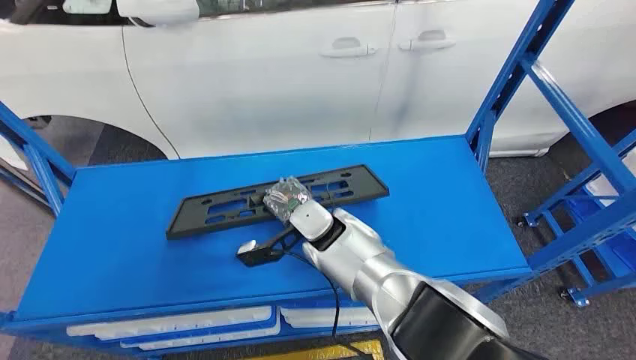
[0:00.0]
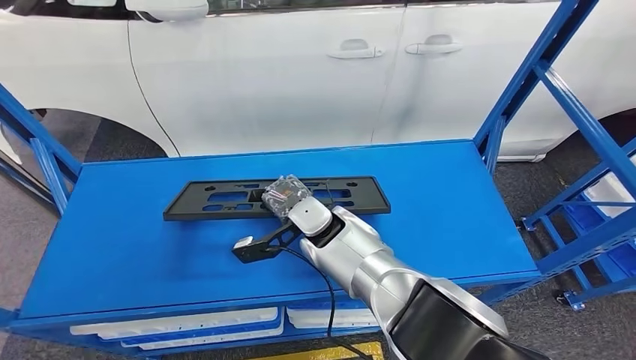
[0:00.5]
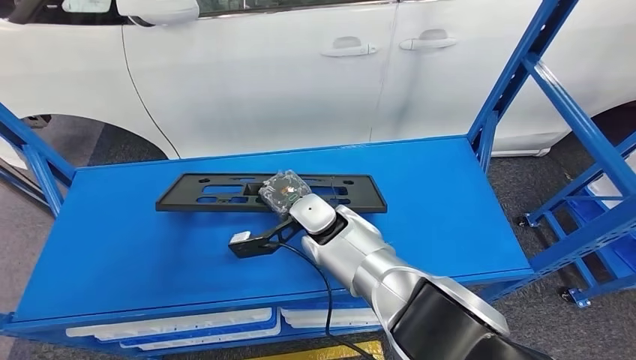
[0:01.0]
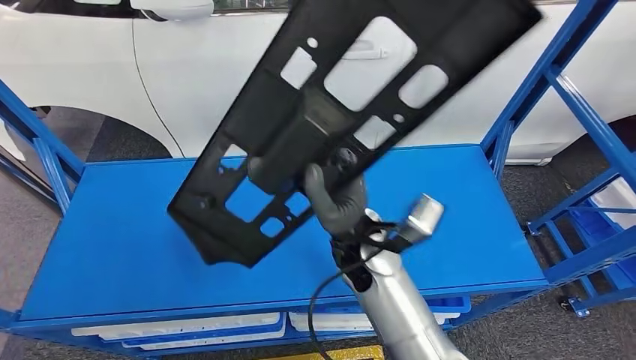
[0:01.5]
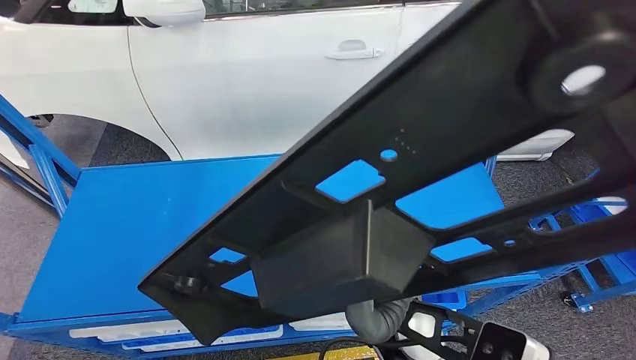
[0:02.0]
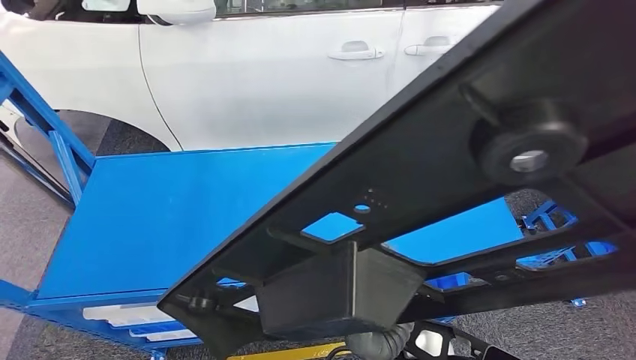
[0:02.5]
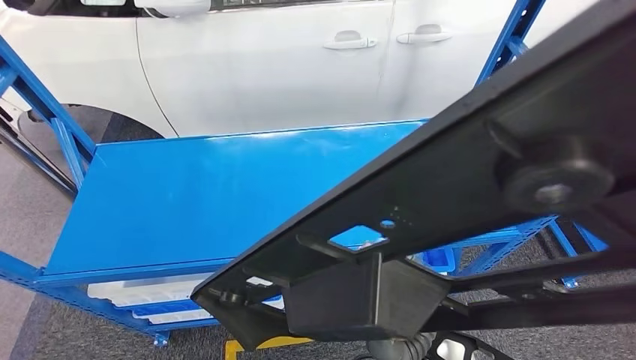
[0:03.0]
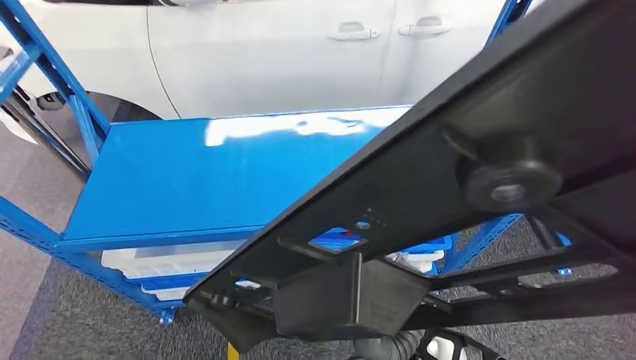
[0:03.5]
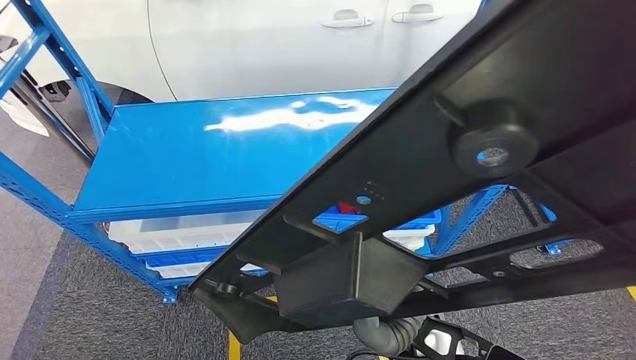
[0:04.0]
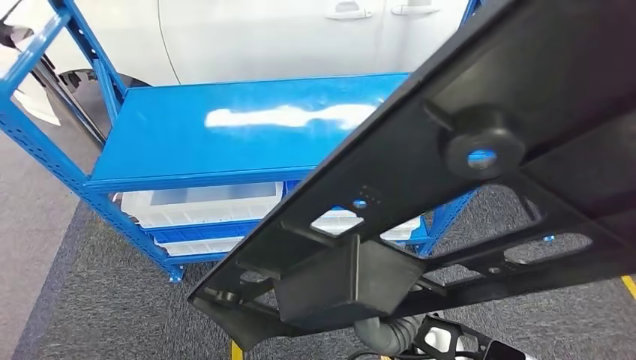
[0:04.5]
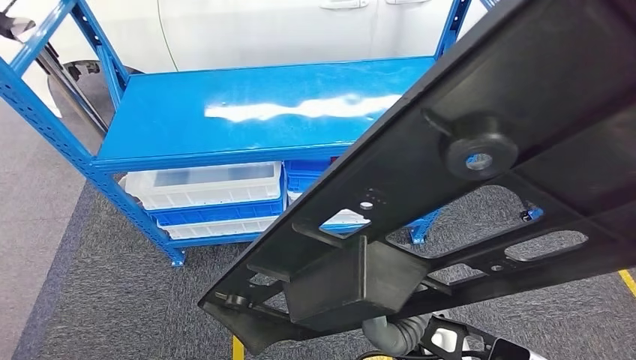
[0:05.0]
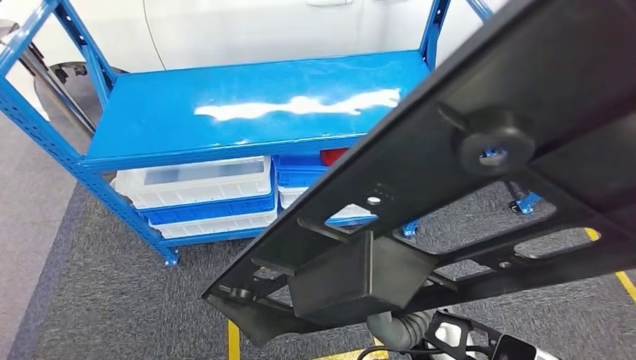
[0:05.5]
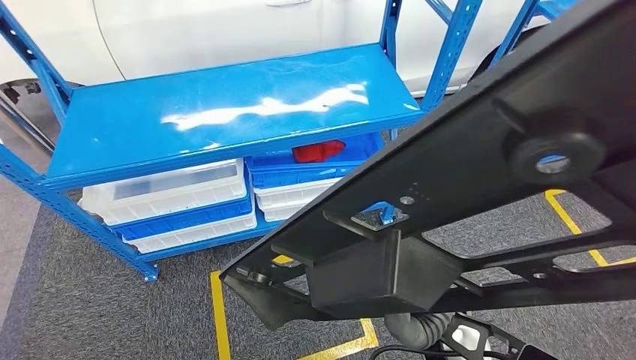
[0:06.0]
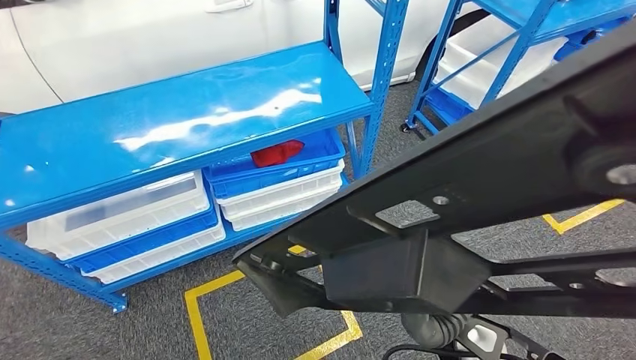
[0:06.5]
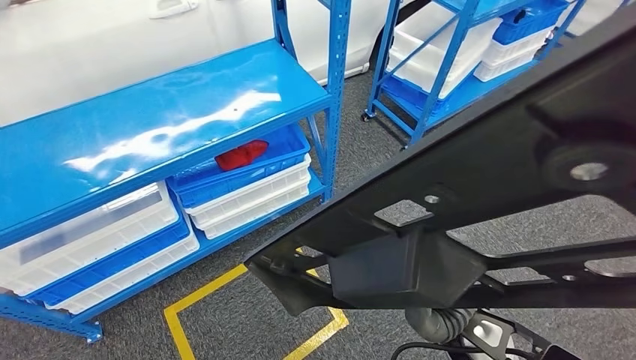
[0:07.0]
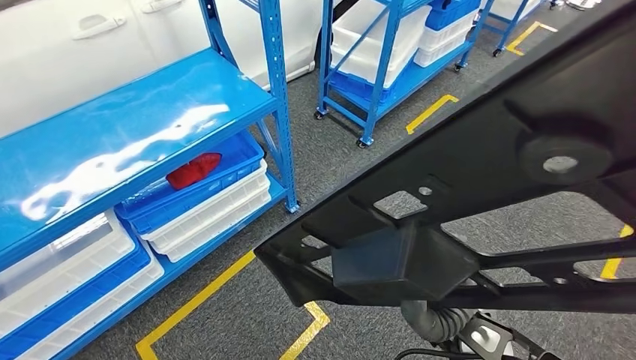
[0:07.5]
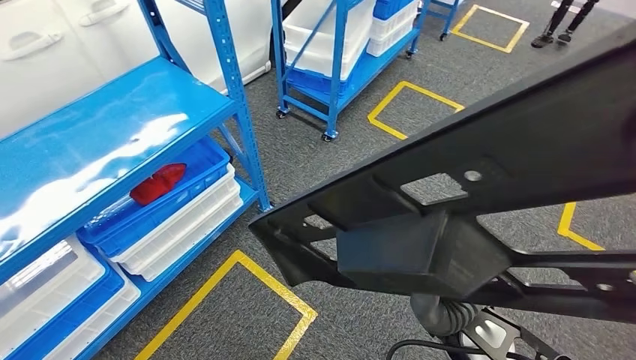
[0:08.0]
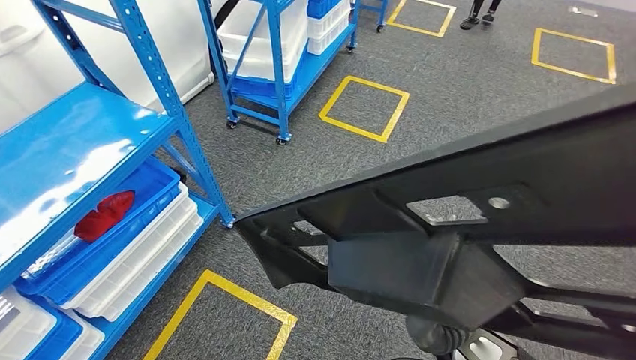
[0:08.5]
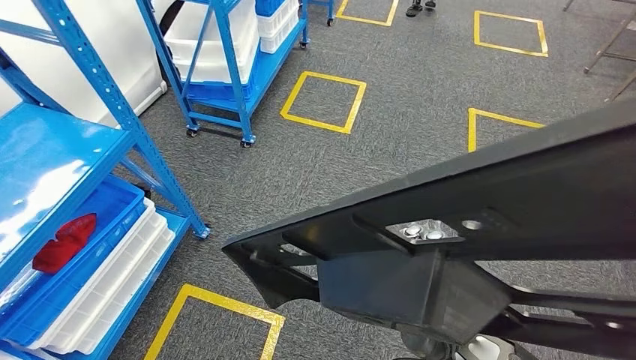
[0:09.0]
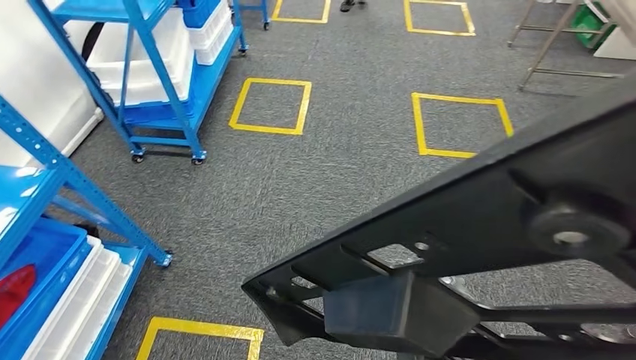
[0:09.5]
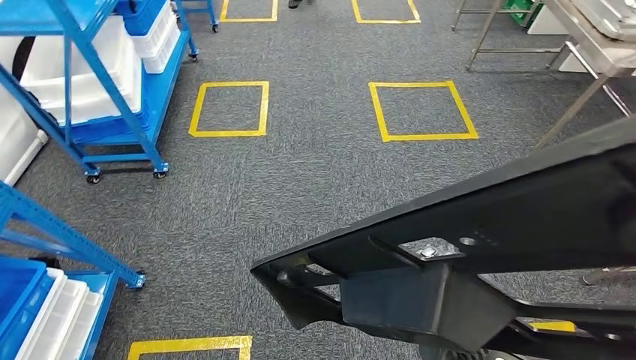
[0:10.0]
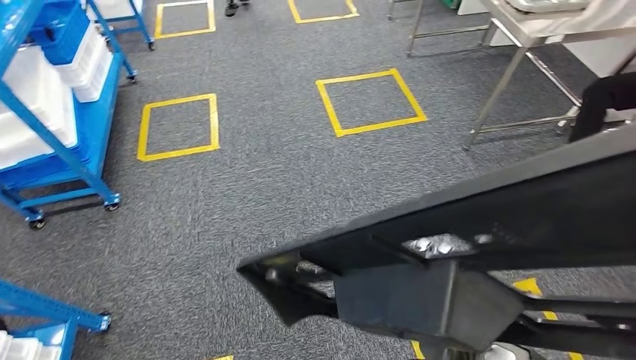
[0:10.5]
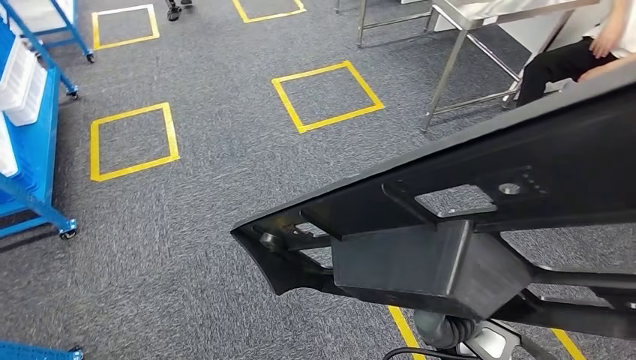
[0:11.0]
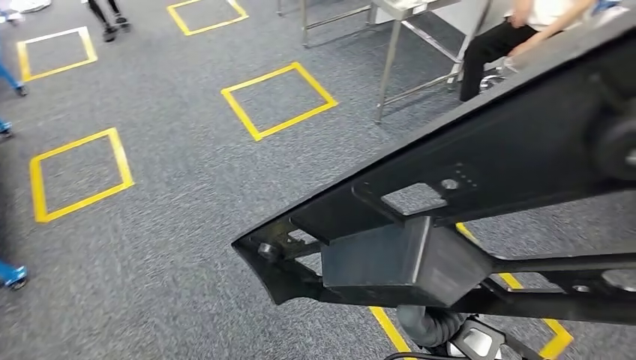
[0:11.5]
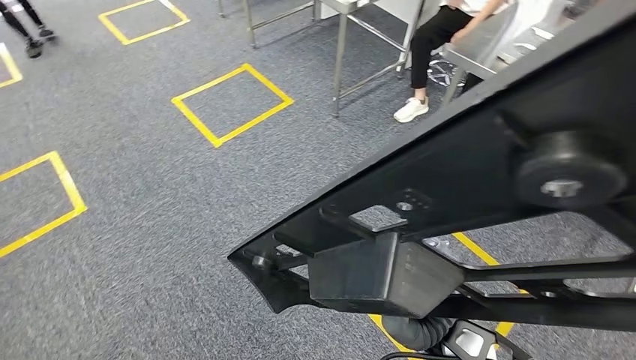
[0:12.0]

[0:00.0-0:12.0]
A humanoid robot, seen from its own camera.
Step, 0:00.0 to 0:02.0: Pick up the large material from the shelf.

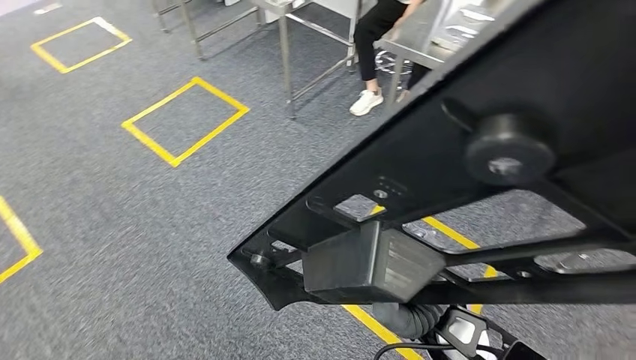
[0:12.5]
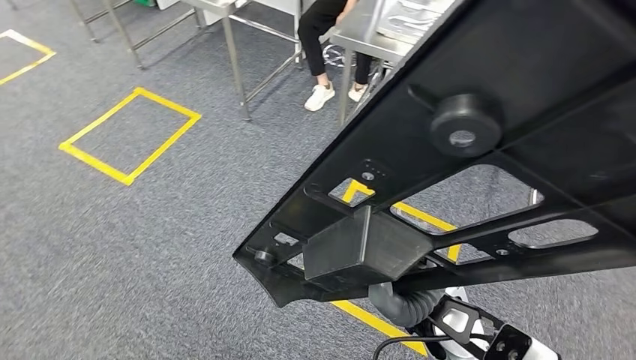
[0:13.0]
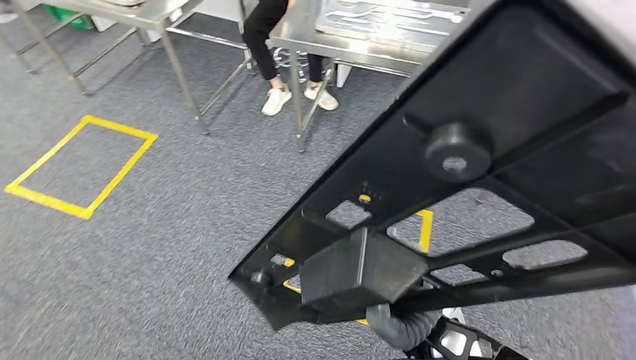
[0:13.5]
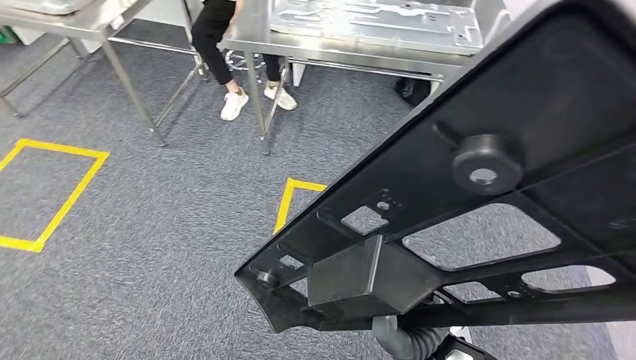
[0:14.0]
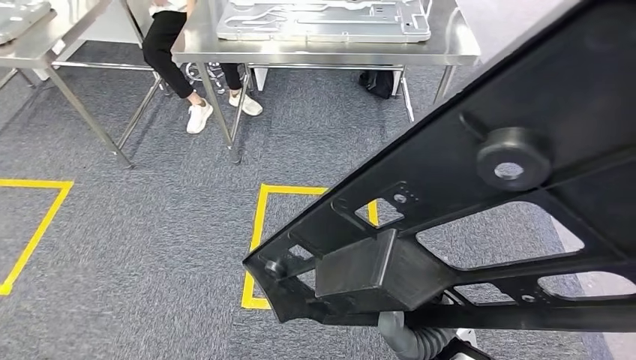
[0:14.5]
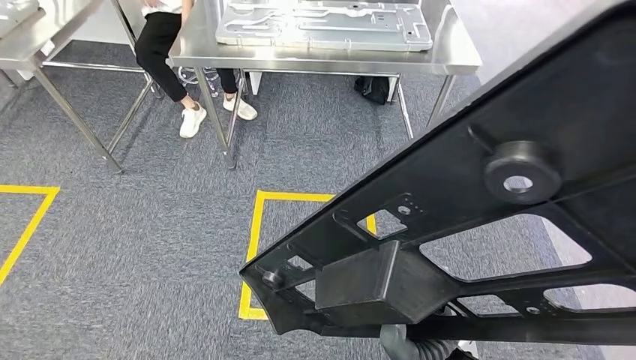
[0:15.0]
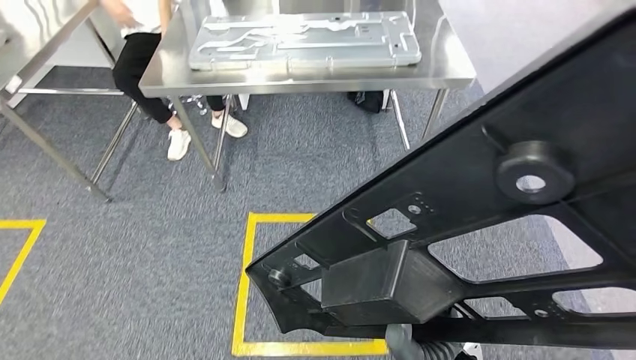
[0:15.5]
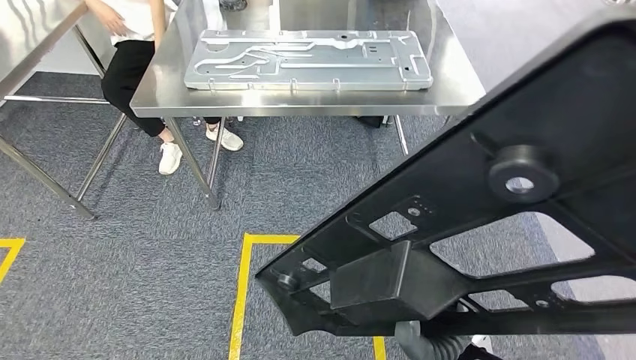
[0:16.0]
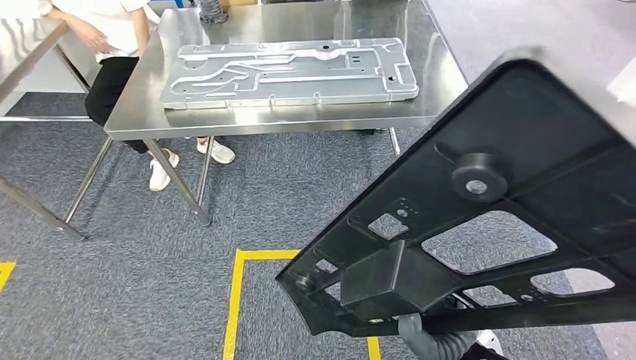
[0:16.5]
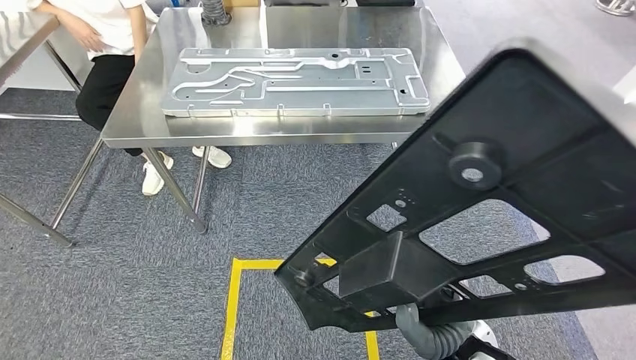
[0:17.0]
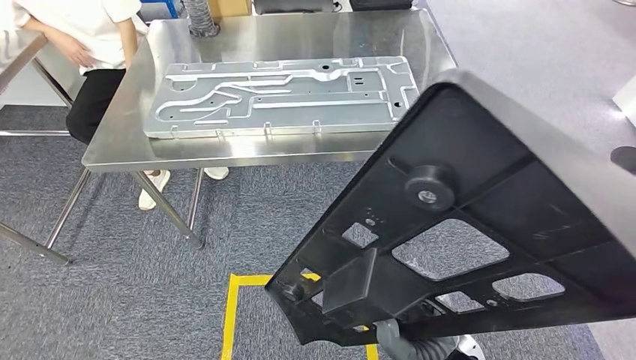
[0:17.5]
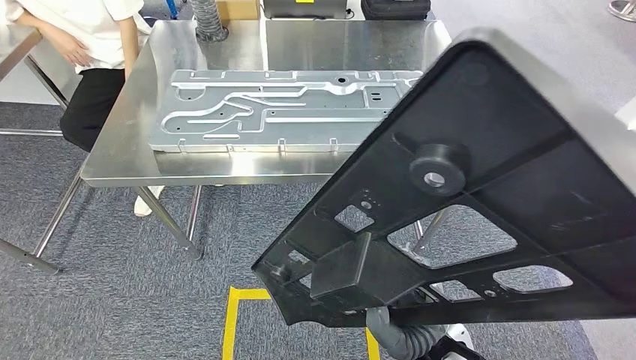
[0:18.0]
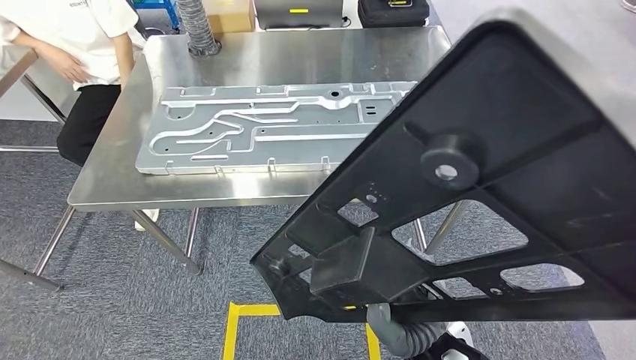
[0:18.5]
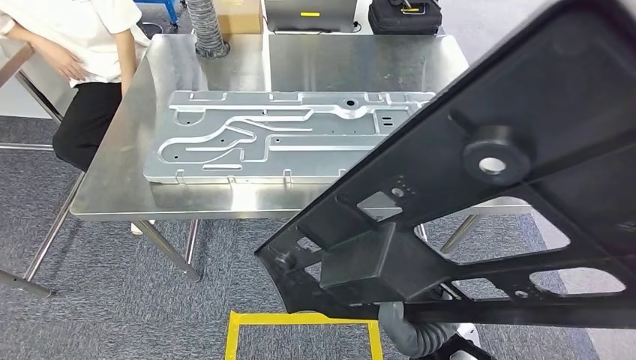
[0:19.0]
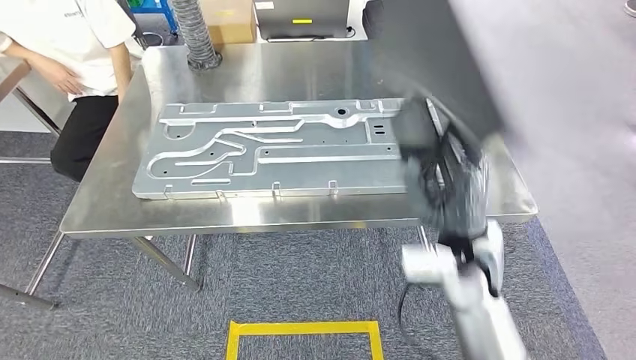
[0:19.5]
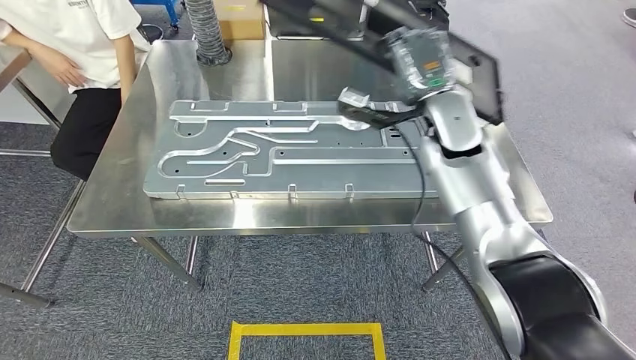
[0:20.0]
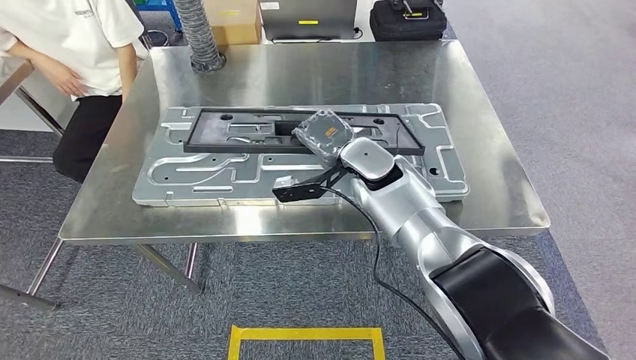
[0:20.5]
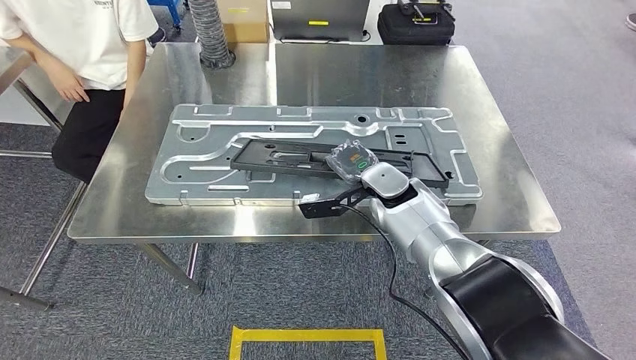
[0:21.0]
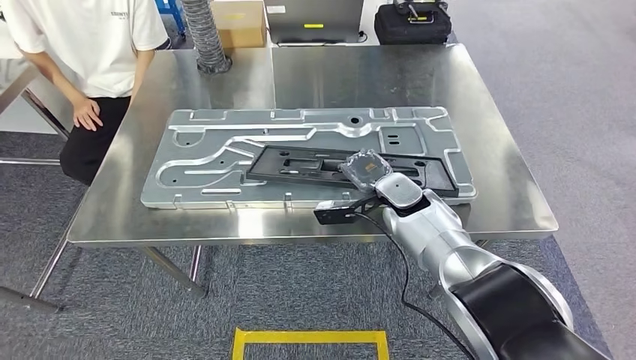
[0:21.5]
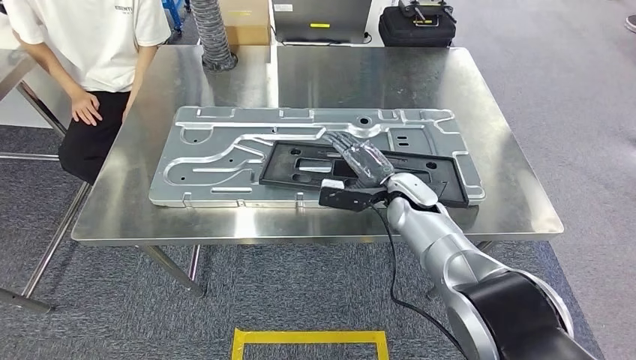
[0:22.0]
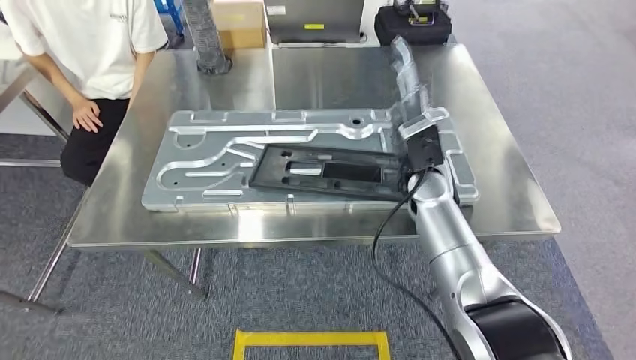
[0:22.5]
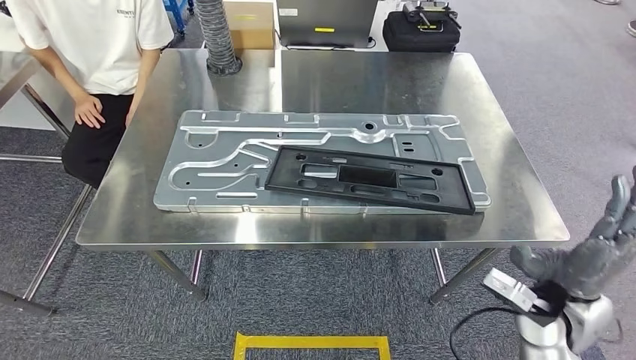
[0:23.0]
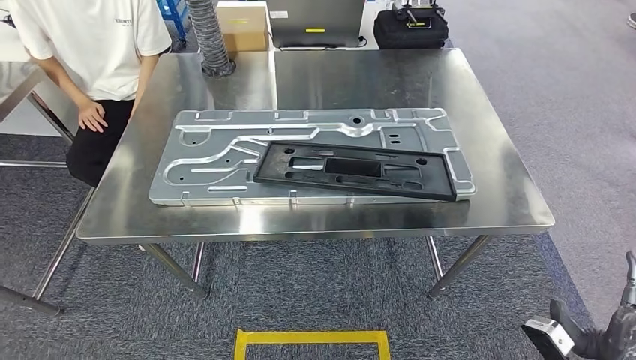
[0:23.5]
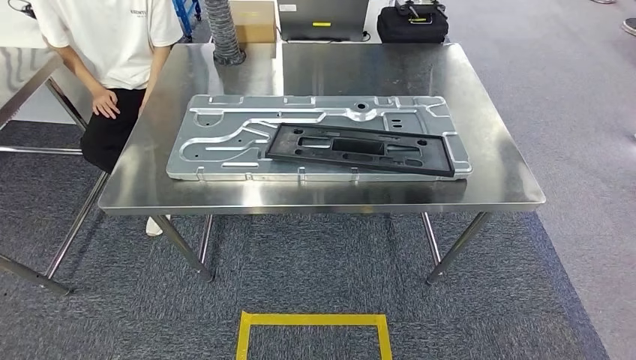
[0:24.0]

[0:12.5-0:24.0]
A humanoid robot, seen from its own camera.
Step, 0:12.5 to 0:19.5: Move the large material to the workbench.
Step, 0:20.0 to 0:23.0: Insert the large material into the corresponding slot on the workbench.
